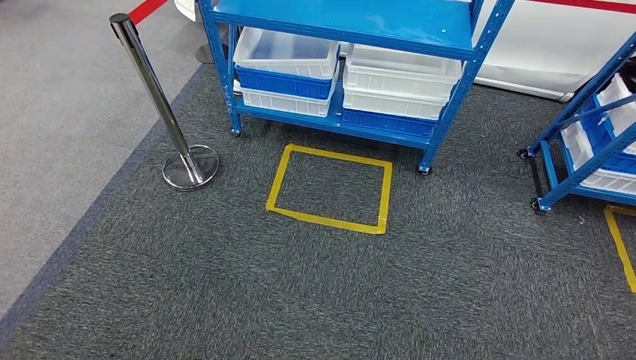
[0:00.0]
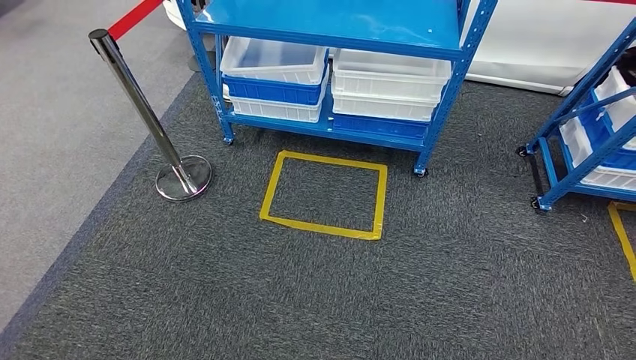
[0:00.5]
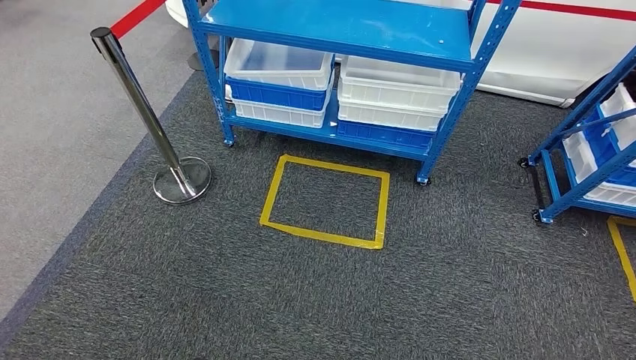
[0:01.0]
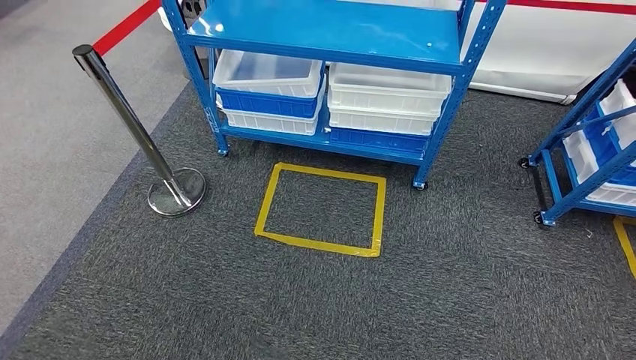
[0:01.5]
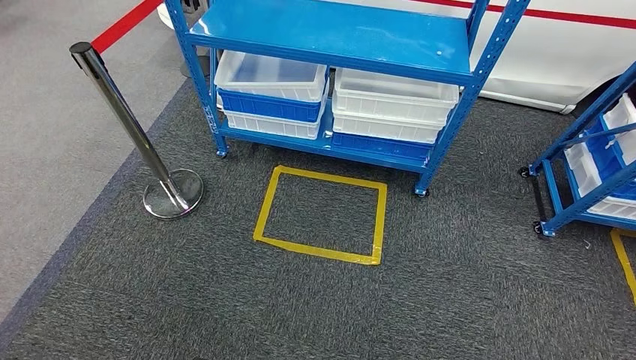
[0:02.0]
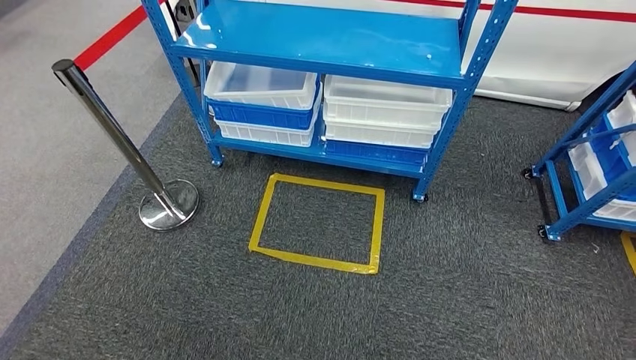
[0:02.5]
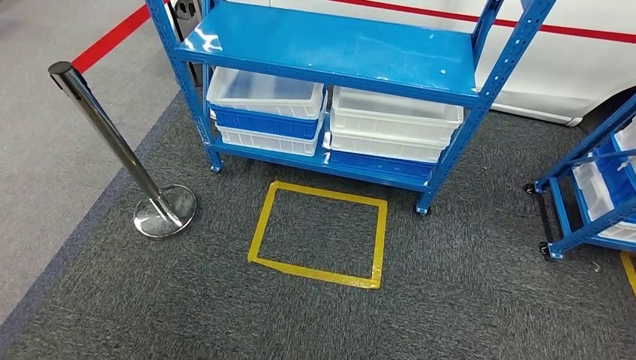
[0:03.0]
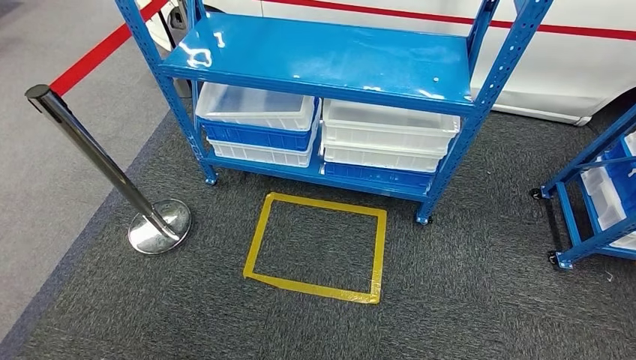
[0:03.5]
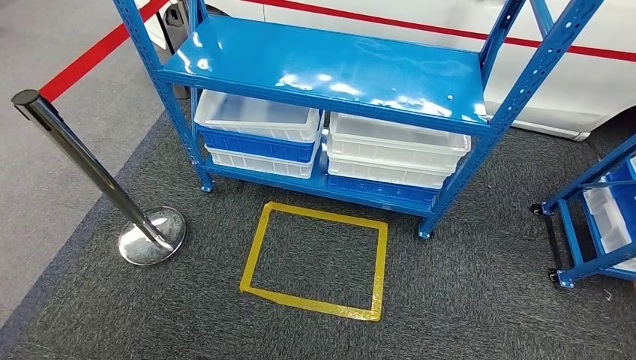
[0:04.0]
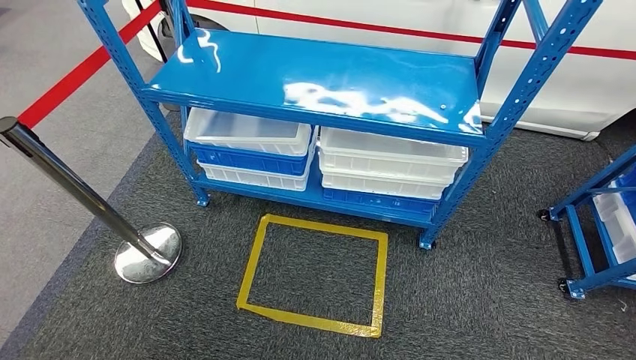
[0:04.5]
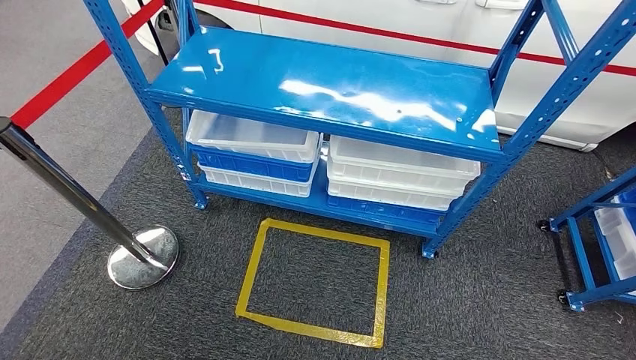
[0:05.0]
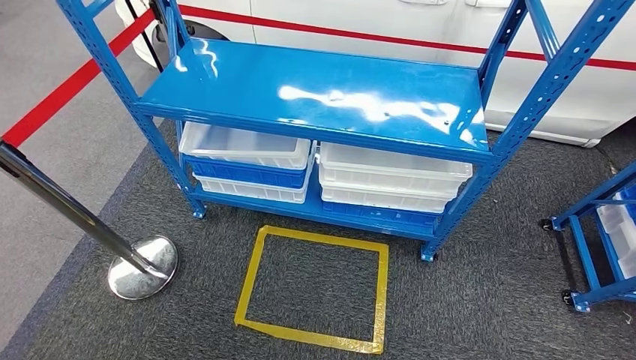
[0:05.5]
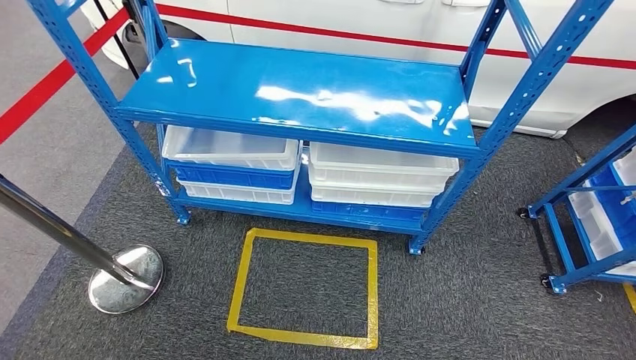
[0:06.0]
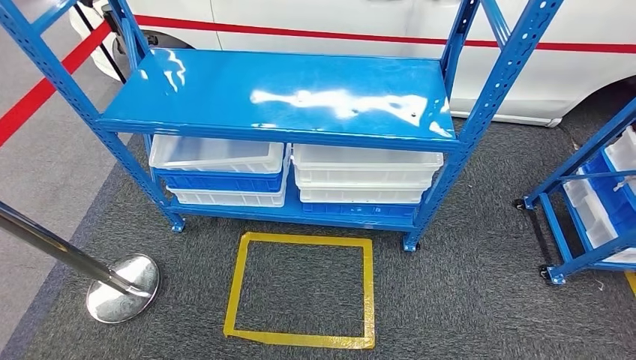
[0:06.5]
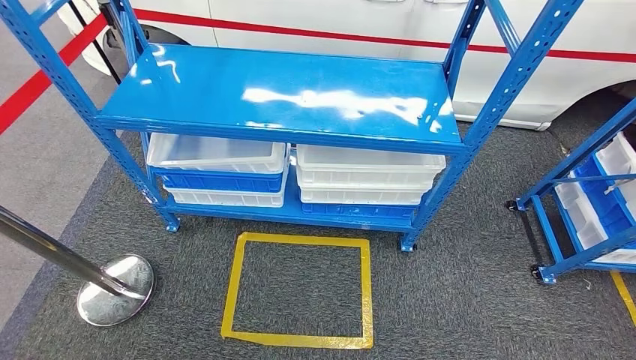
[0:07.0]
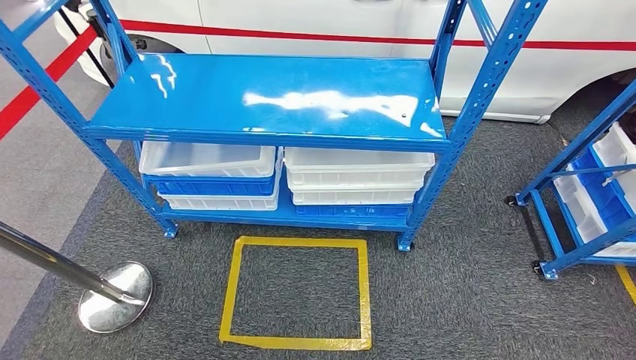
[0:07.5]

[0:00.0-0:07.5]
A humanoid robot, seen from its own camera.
Step, 0:00.0 to 0:07.5: Return to the initial position at the shelf.
